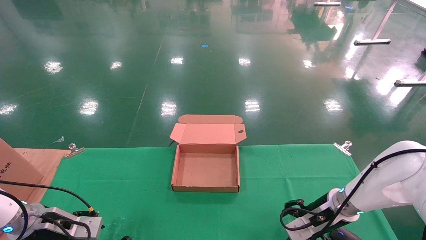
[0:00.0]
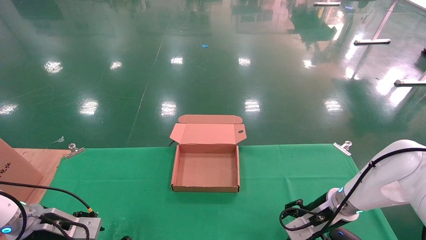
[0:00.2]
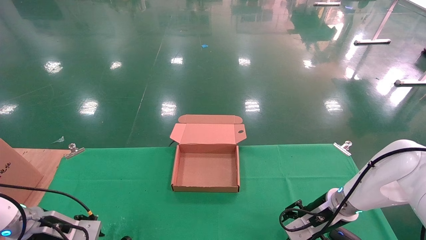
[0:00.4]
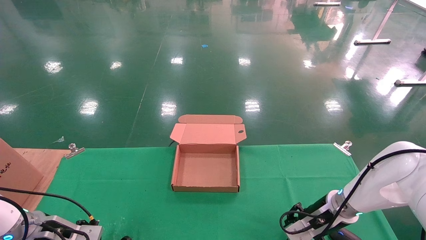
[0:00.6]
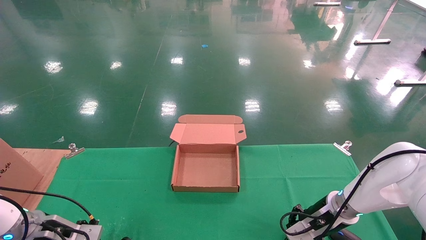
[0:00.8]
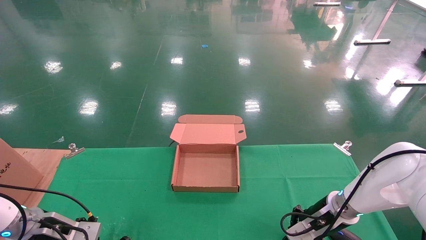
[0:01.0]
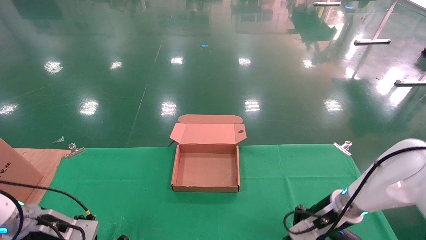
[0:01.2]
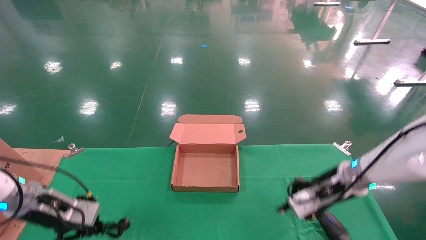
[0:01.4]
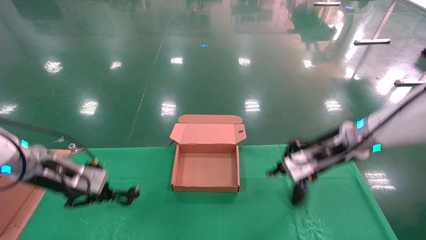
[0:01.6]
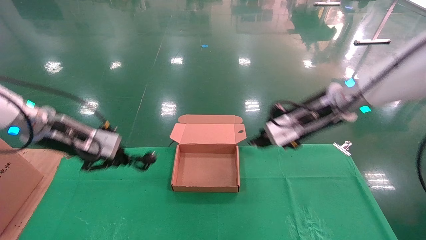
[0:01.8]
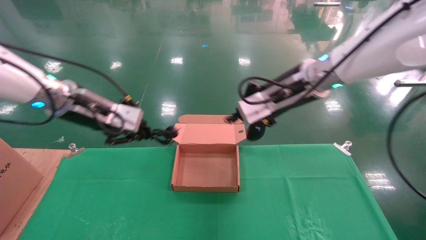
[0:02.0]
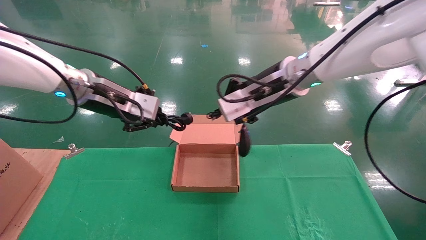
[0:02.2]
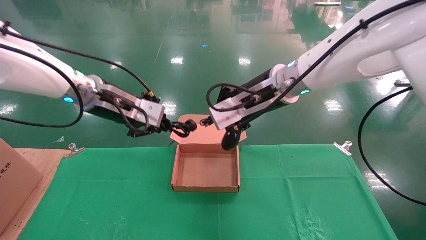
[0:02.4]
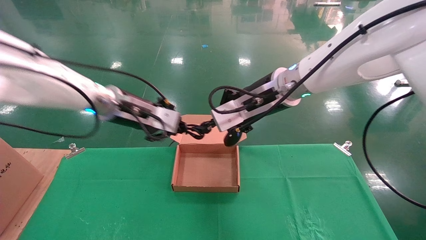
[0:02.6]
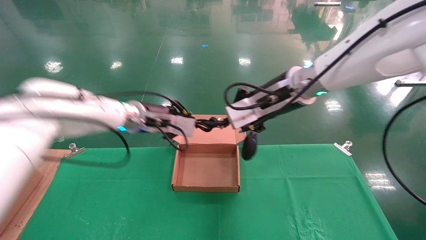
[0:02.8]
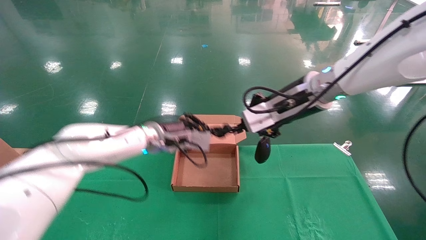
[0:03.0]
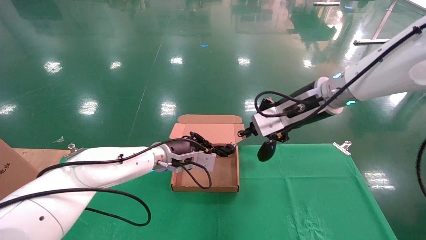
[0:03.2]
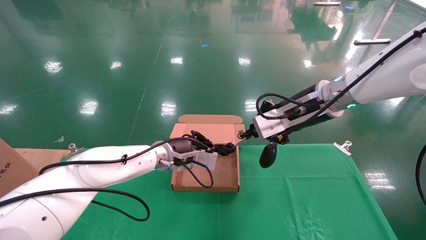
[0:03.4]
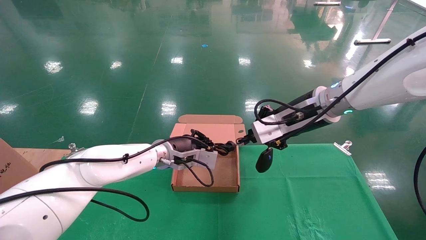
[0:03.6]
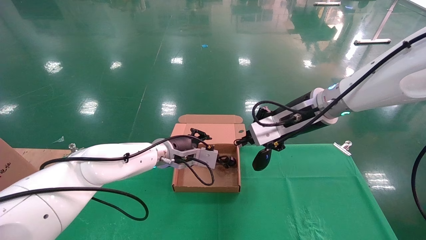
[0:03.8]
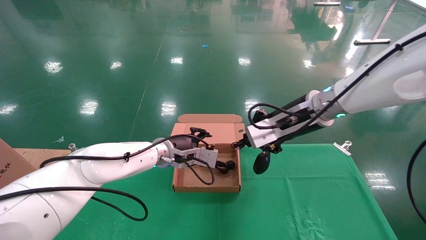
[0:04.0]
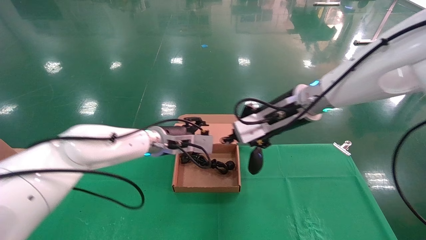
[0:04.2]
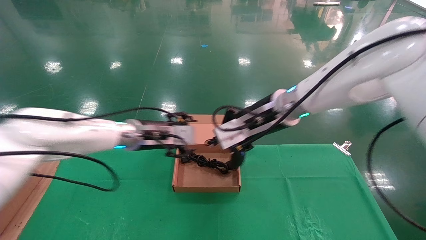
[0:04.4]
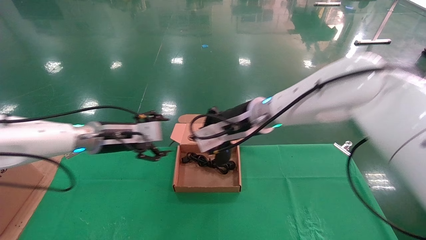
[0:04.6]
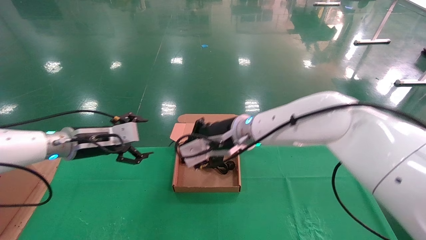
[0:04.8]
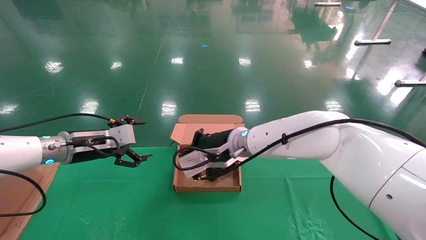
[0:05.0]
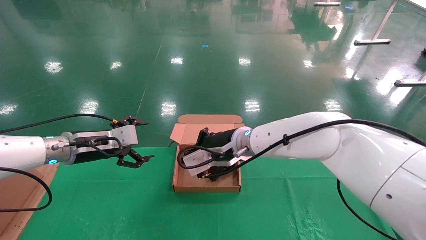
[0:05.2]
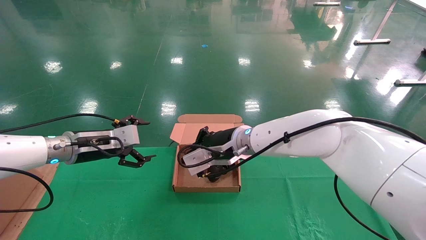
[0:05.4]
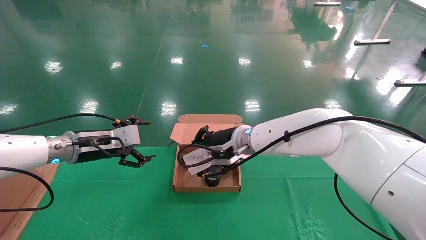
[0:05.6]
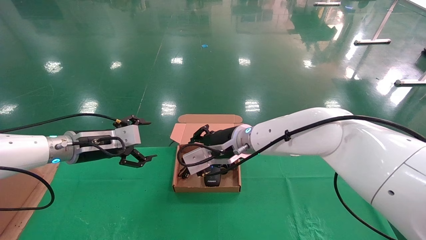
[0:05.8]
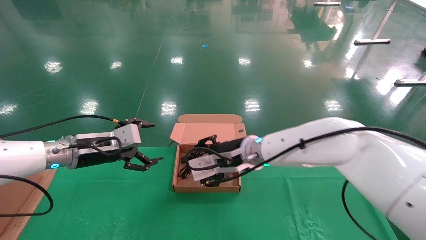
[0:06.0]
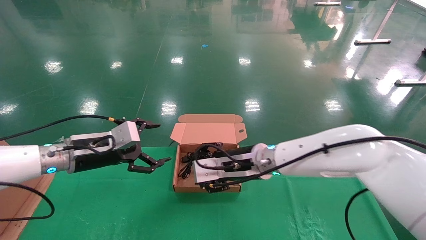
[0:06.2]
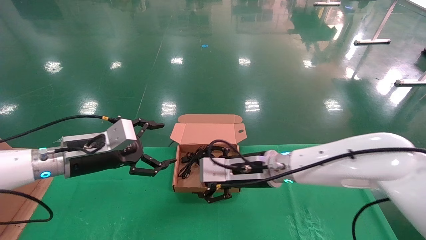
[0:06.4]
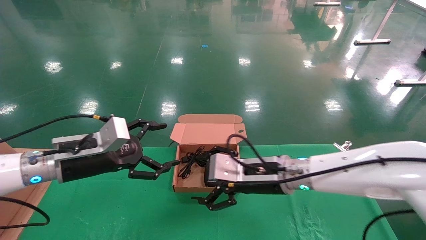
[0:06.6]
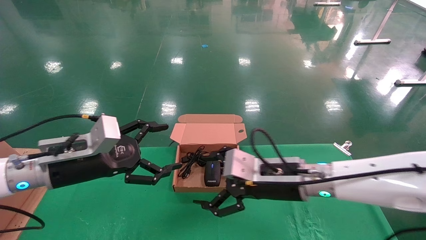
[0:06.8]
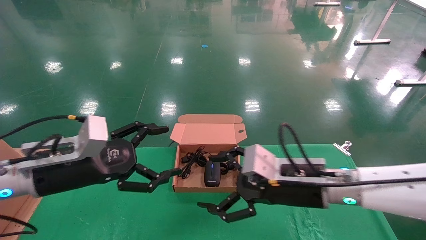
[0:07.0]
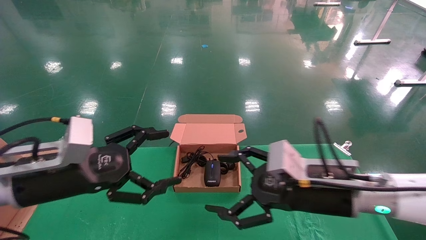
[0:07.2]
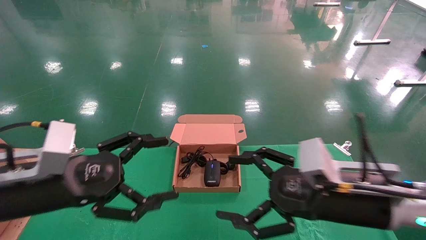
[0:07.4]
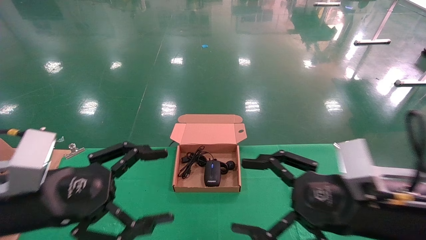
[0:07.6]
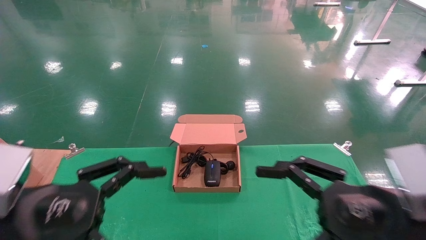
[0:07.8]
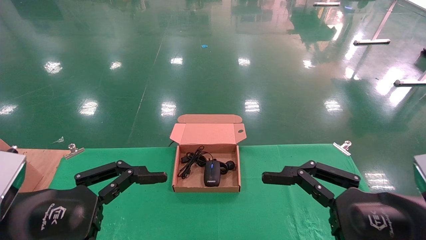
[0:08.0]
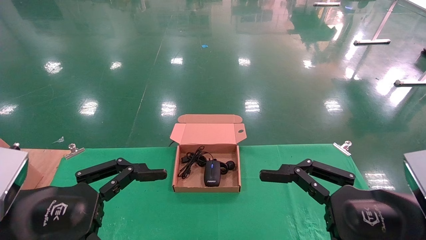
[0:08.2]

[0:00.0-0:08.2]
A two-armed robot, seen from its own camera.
Step, 0:01.2 to 0:06.4: Place the mouse and power cord into the box.
0:00.0 to 0:01.6: Both grippers travel together upward, roughly 15 cm. The right gripper closes its fingers; the left gripper closes up.
0:01.6 to 0:03.2: The left gripper is displaced to the right and forward by approximately 25 cm, while the right gripper is displaced upward and to the left by approximately 10 cm.
0:03.2 to 0:05.0: The left gripper shifts approximately 20 cm to the left, and opens up; the right gripper goes approximately 15 cm to the left and downward.
0:05.0 to 0:06.6: The left gripper is displaced backward by approximately 10 cm; the right gripper goes some 10 cm to the right and backward, and opens its fingers.
0:06.6 to 0:08.2: The left gripper moves backward, roughly 20 cm. The right gripper moves backward and to the right, some 25 cm.
